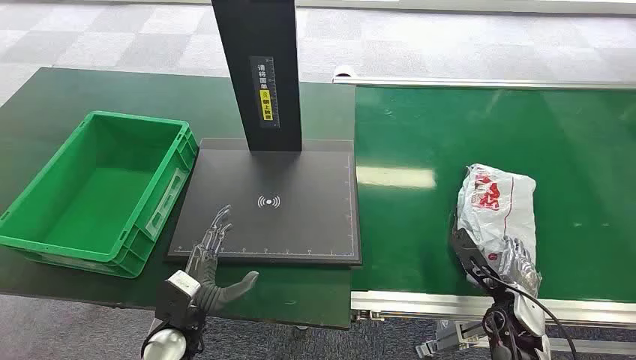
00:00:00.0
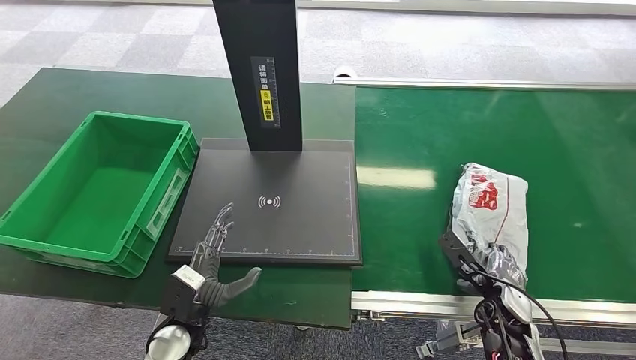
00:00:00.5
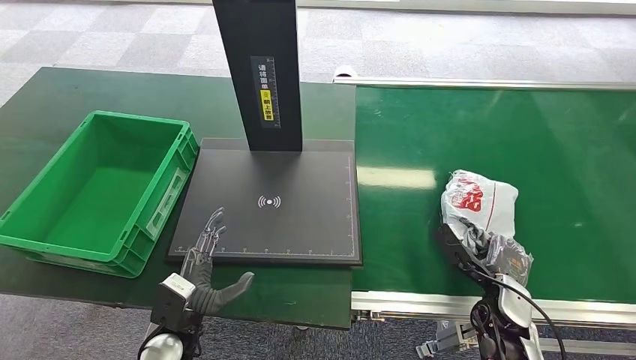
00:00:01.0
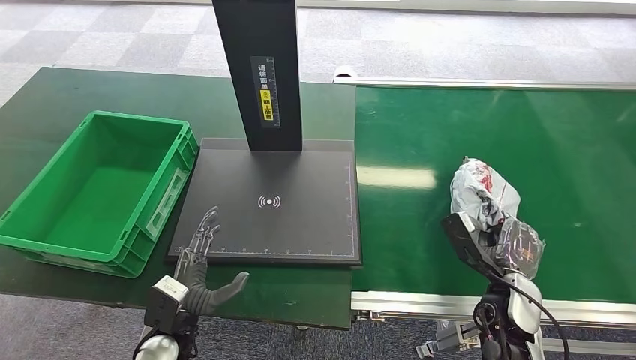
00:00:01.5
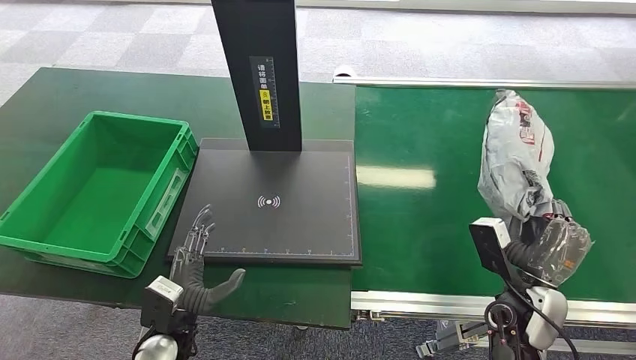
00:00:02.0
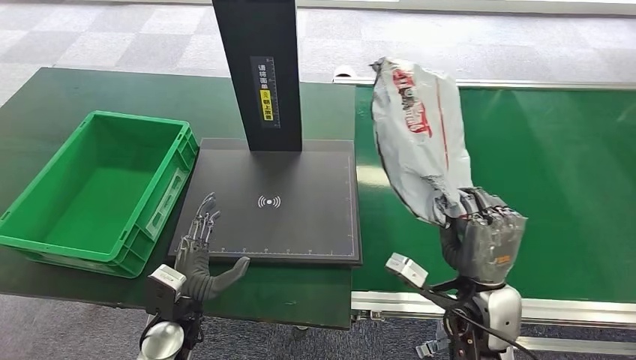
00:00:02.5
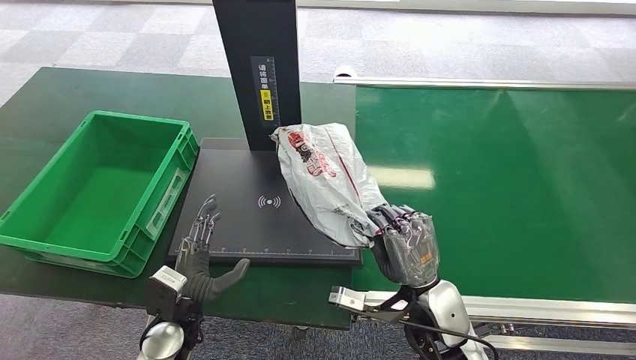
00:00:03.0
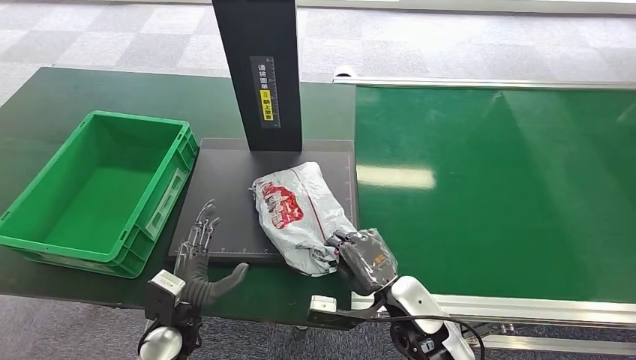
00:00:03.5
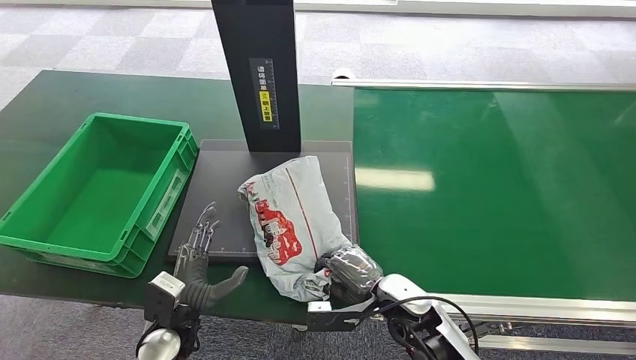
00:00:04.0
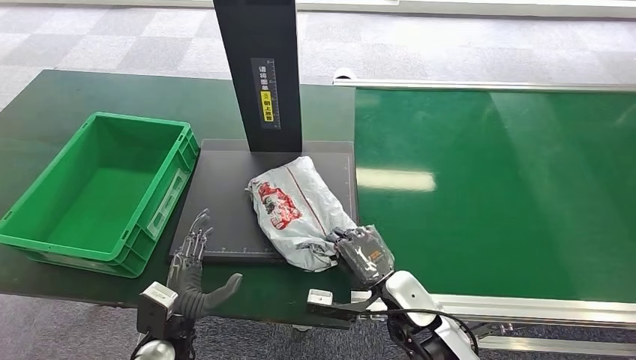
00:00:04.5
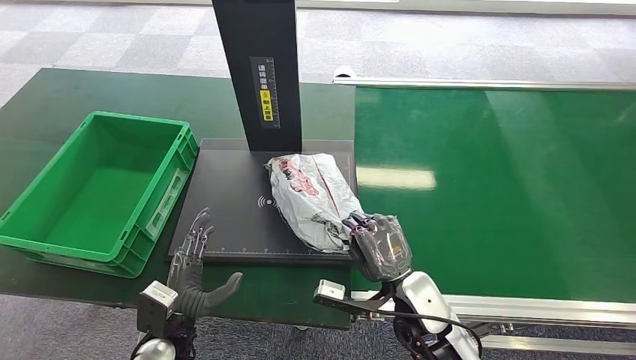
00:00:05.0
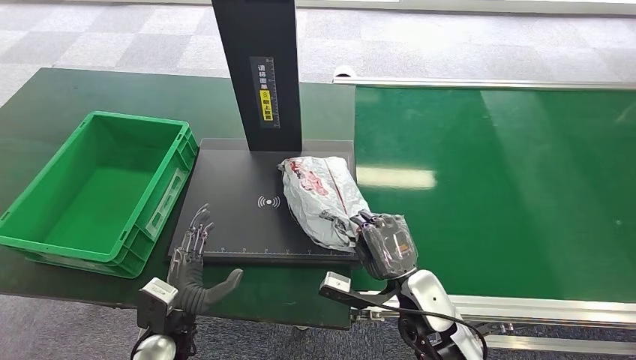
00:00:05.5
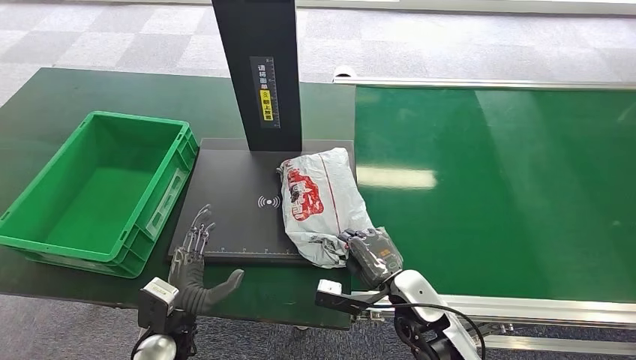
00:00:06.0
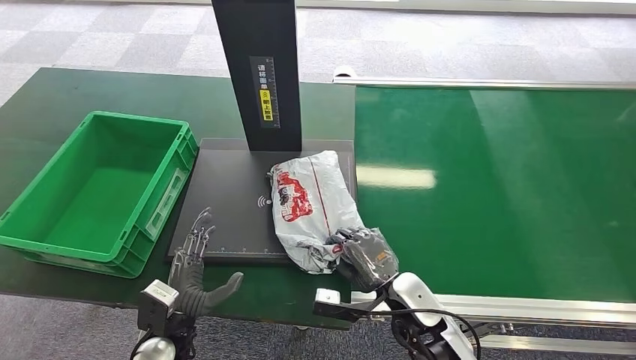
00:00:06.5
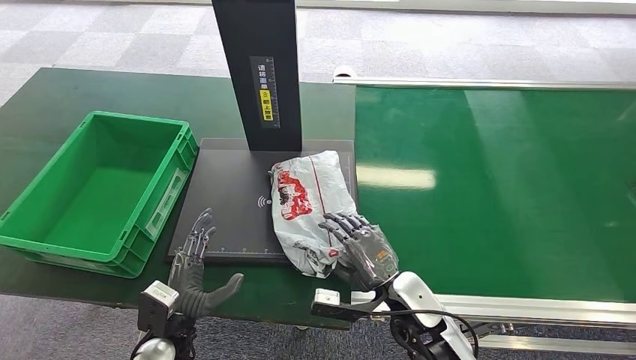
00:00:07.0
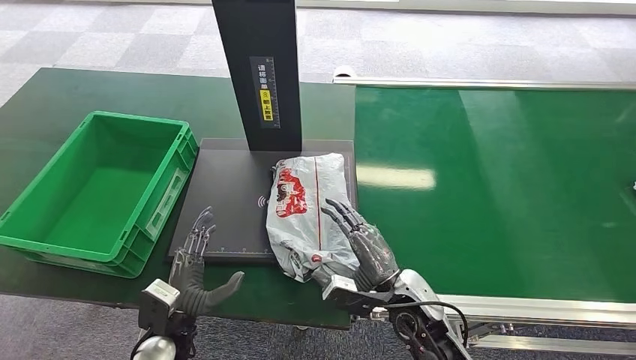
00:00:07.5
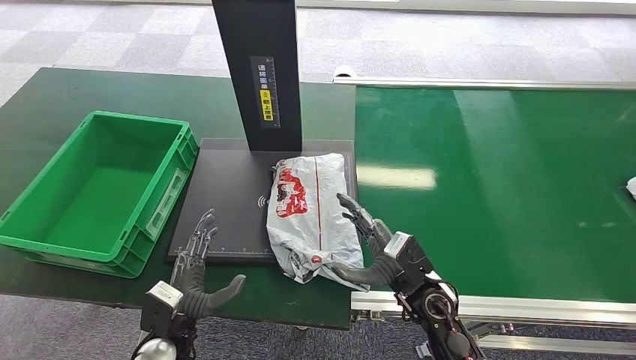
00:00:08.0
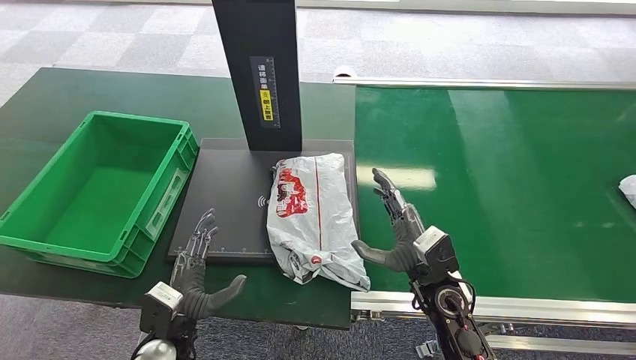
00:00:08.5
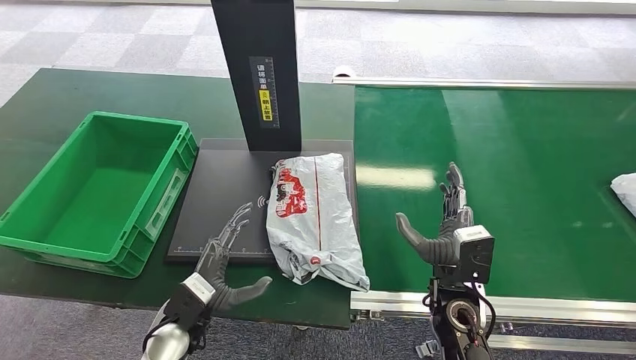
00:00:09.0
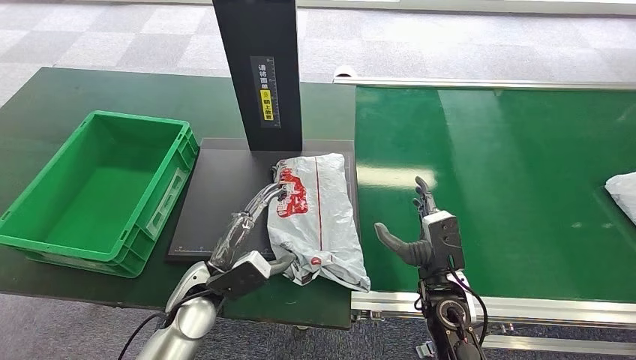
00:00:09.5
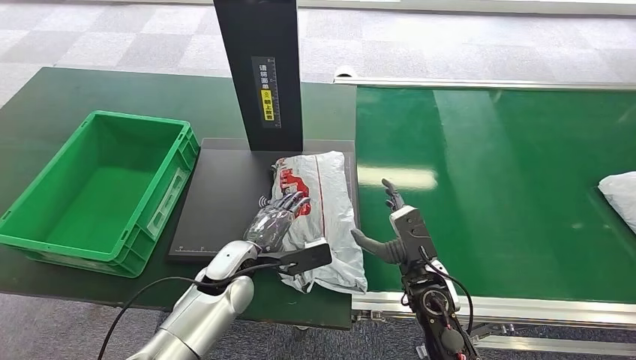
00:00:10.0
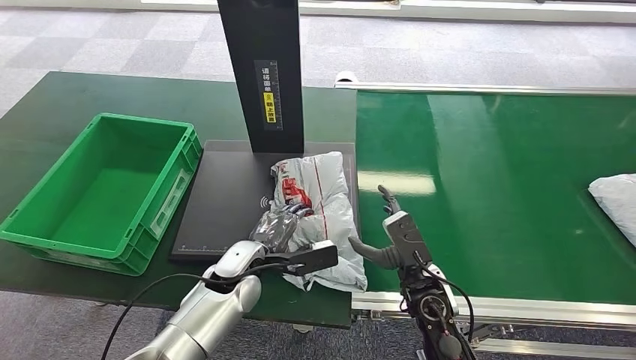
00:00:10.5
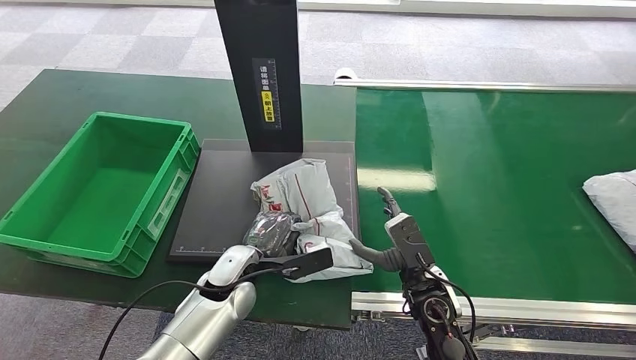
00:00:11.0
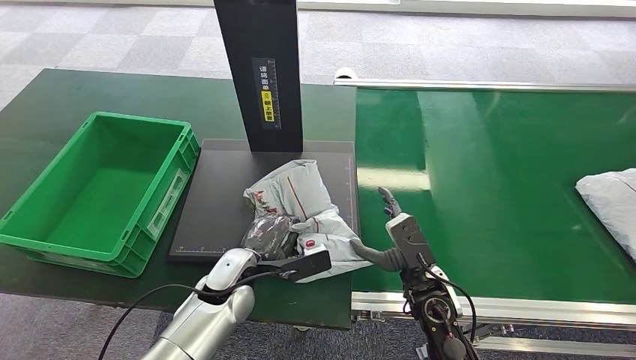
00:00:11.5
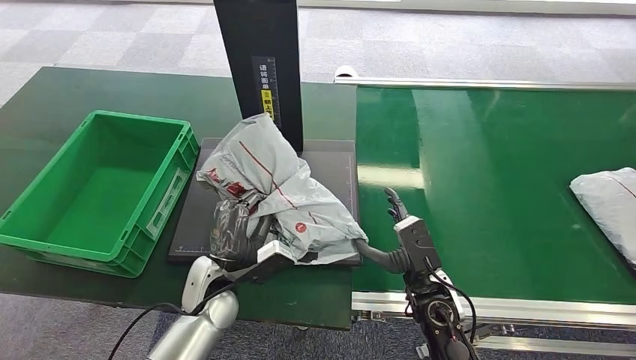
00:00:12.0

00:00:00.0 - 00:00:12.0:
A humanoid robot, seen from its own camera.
Step, 00:00:00.0 - 00:00:02.0: Pick up the package from the conveyor belt.
Step, 00:00:02.5 - 00:00:07.0: Place the package onto the inbound machine.
00:00:08.0 - 00:00:10.0: The left hand shifts roughly 15 cm forward and to the right.

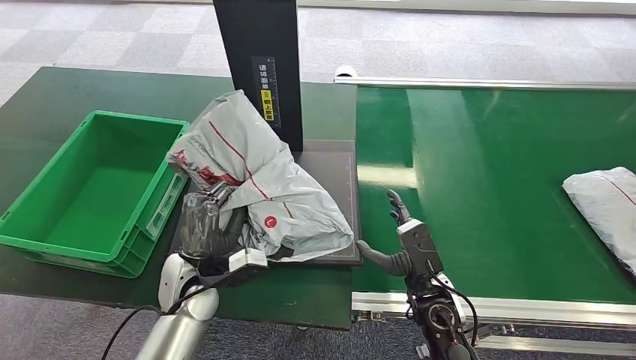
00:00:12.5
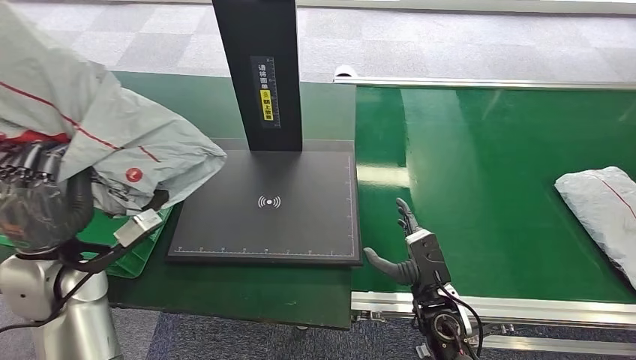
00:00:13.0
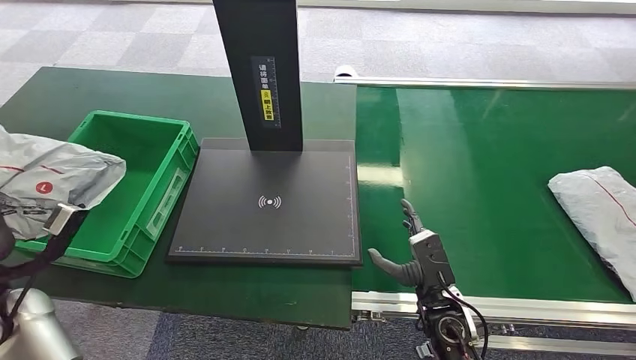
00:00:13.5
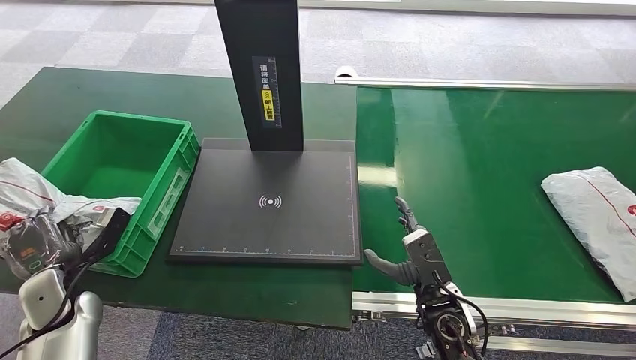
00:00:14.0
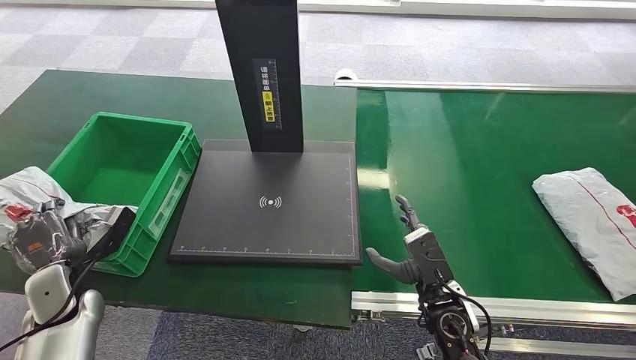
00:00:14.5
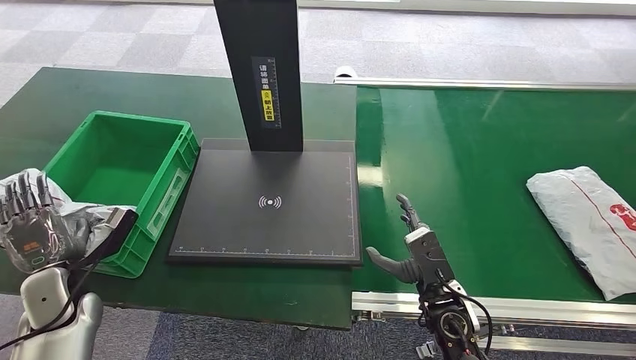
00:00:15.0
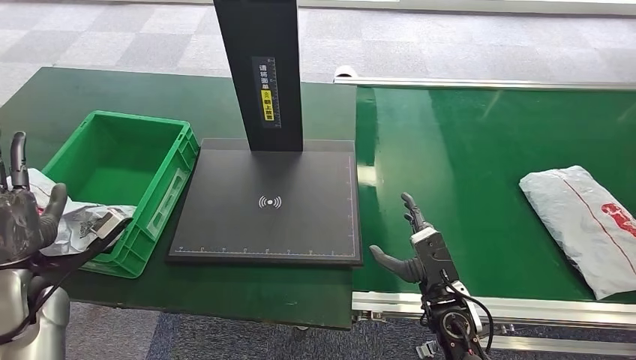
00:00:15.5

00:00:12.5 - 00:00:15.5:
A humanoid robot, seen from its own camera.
Step, 00:00:13.0 - 00:00:15.5: Place the package into the parcel locker.
00:00:14.0 - 00:00:15.5: The left hand travels upward by roughly 10 cm.
